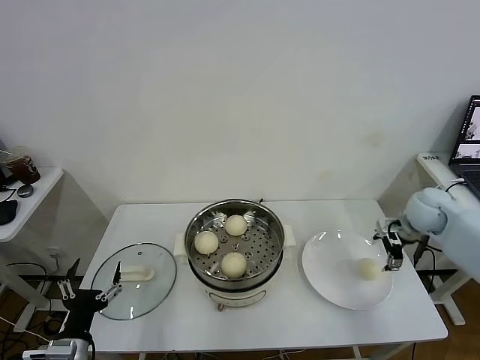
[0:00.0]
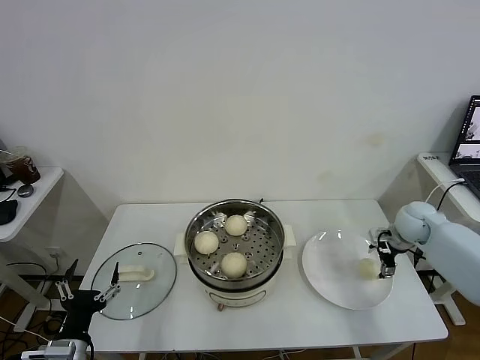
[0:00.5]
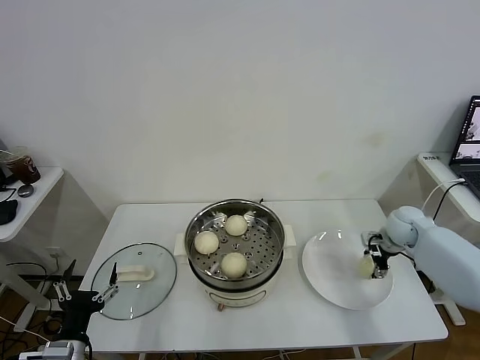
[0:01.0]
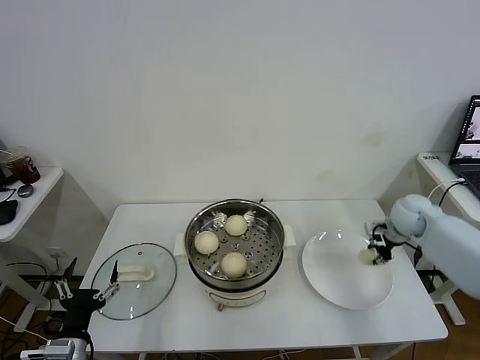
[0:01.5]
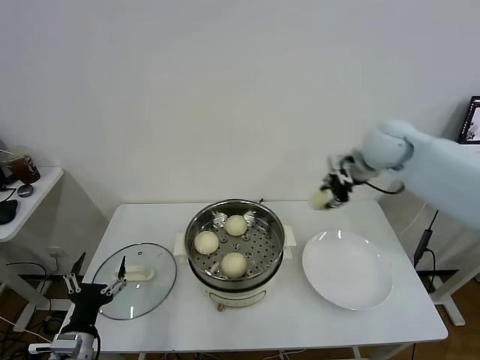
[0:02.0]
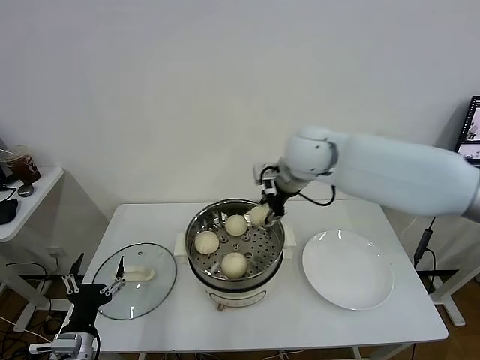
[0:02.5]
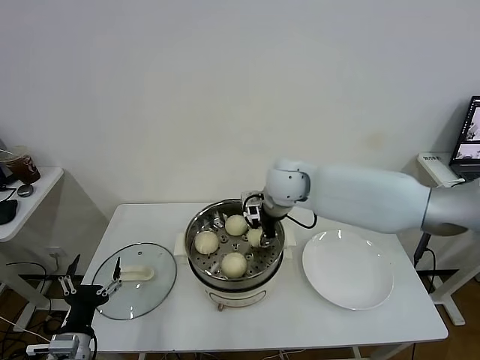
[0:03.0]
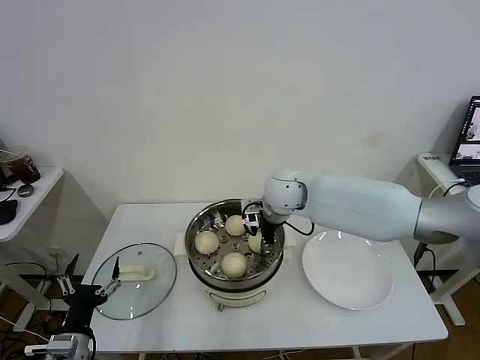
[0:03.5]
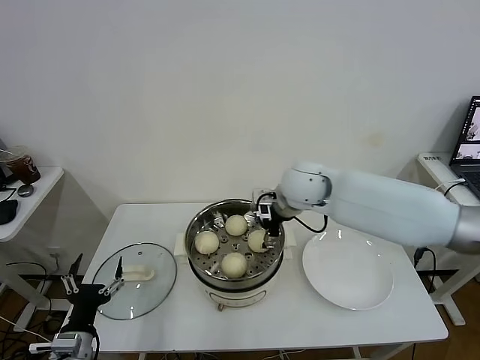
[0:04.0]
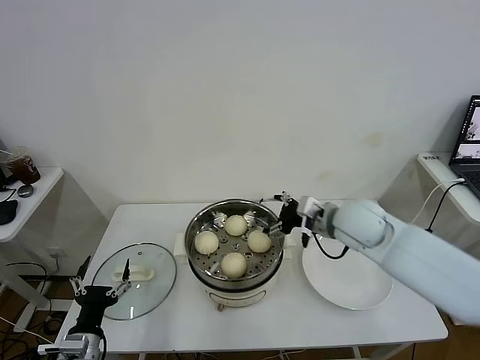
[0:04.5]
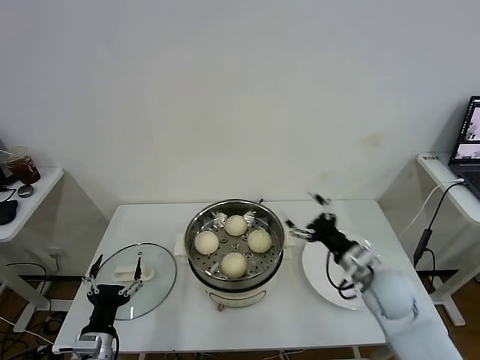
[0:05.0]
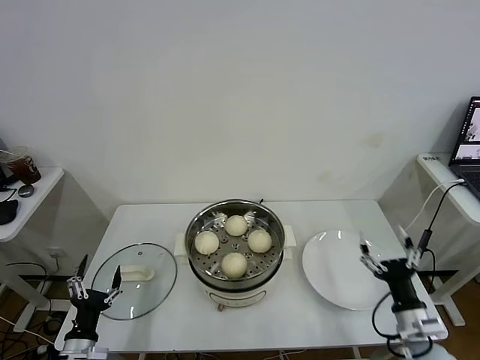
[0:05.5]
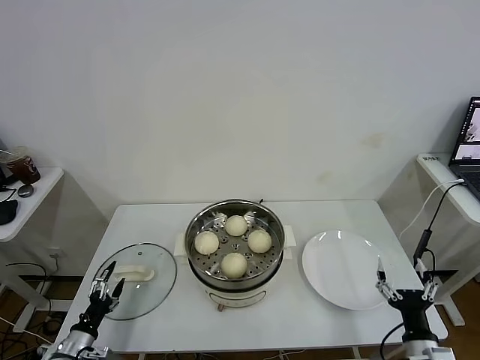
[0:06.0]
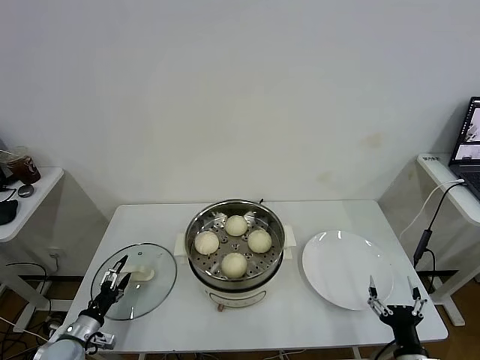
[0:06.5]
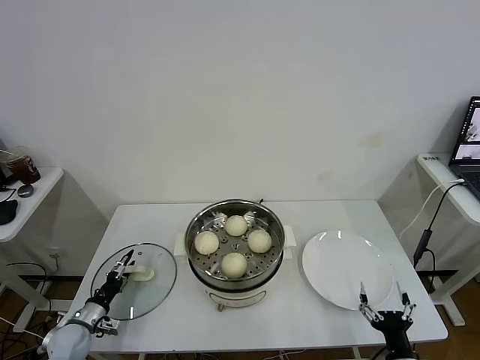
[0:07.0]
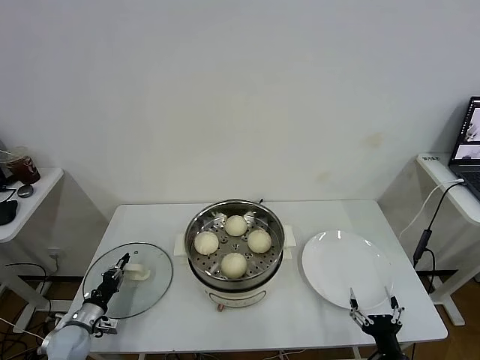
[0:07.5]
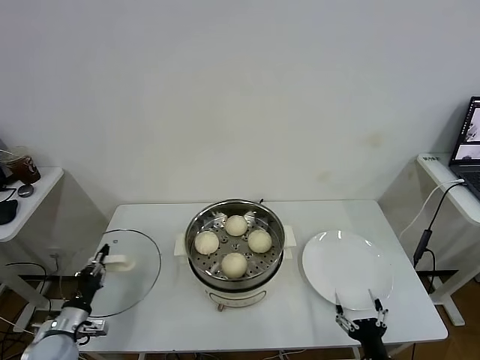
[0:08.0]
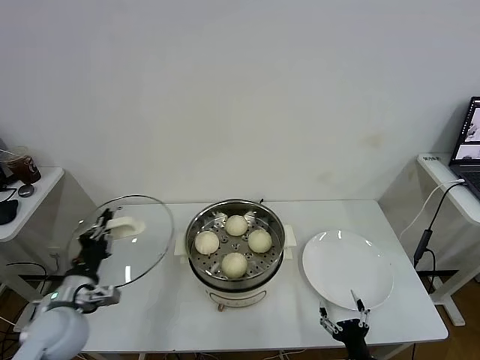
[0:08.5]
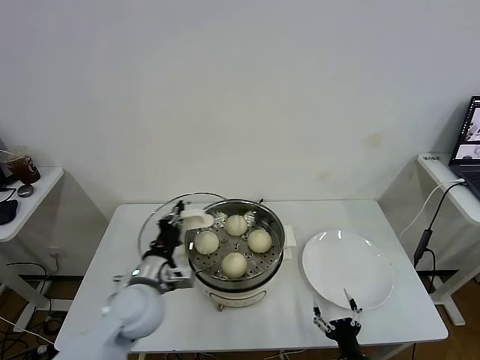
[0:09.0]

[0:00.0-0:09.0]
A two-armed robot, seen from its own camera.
Task of the whole recording: take steamed baozi put them in steamer.
Step, 0:01.5 to 0:03.5: Place the baozi on the steamer with right gripper.
Step, 0:04.0 to 0:07.5: Grasp the pot lid with left gripper.
0:00.0 to 0:02.0: The right gripper goes some 25 cm upward and to the left, and closes.
0:02.0 to 0:04.5: The right gripper is displaced downward and backward by roughly 15 cm, travels to the left and back again, approximately 20 cm each way, and opens its fingers.
0:04.5 to 0:07.0: The right gripper is displaced backward and downward by roughly 40 cm, while the left gripper goes roughly 20 cm downward, forward and to the left.
0:07.0 to 0:09.0: The right gripper heads to the left and downward, covering approximately 10 cm. Meanwhile the left gripper shifts about 30 cm to the right and upward, and closes its fingers.

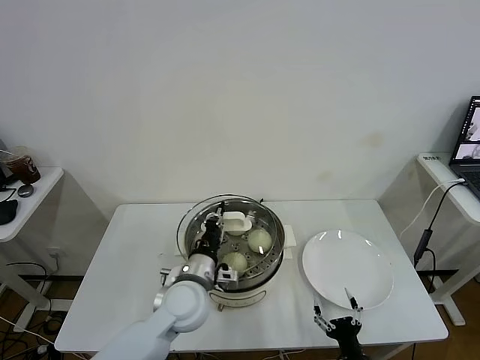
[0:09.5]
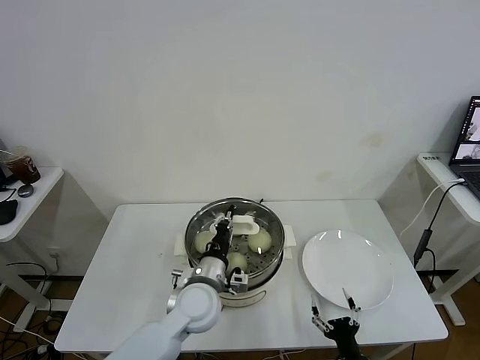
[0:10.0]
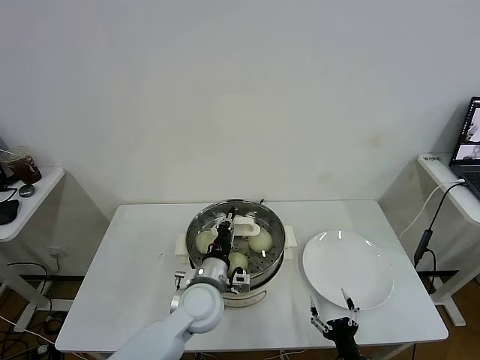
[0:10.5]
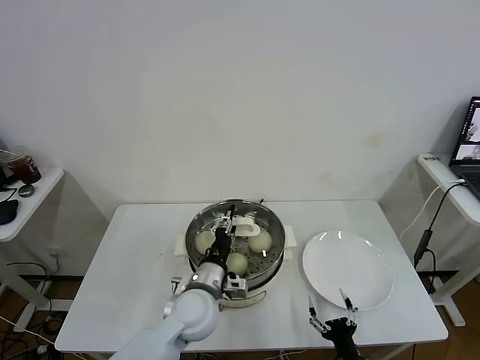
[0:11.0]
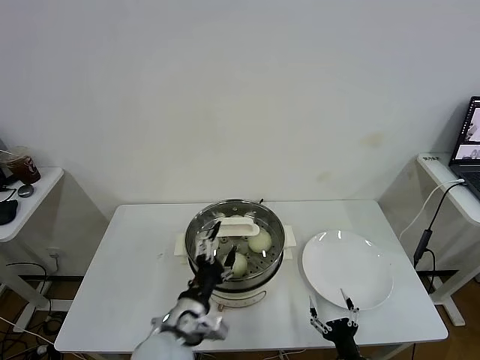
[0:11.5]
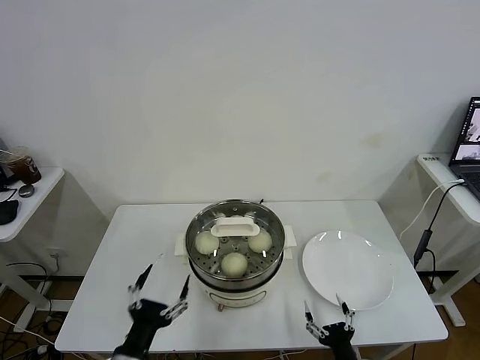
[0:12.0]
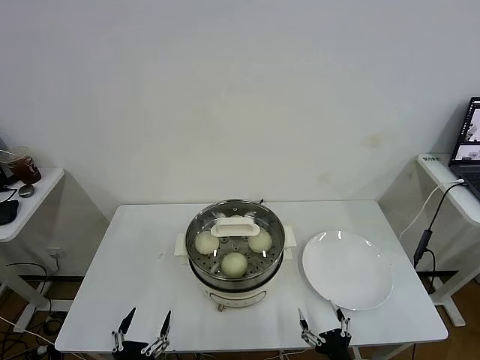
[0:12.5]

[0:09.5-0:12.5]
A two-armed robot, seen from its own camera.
Task of the whole recording: take steamed baozi put them in steamer.
Step, 0:09.5 to 0:11.5: Place the pot lid on the steamer with left gripper.
0:09.5 to 0:11.0: The left gripper opens.
0:11.0 to 0:12.5: The left gripper goes roughly 30 cm backward and to the left, and opens its fingers.
